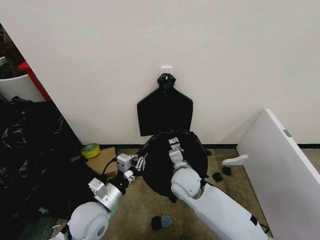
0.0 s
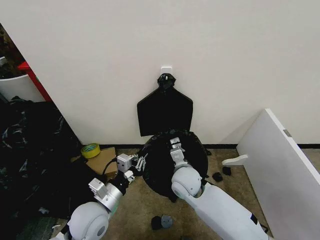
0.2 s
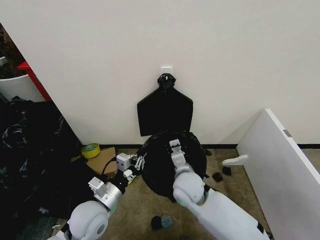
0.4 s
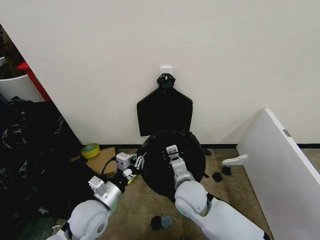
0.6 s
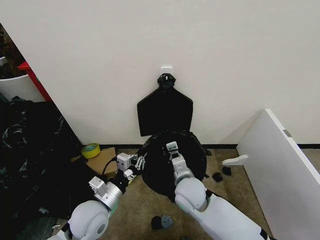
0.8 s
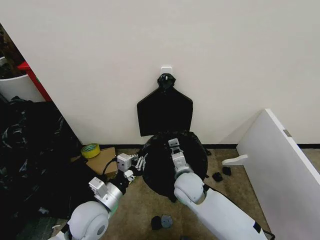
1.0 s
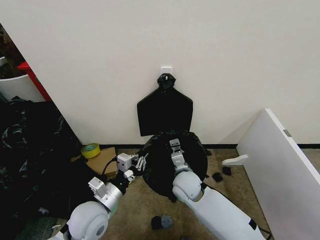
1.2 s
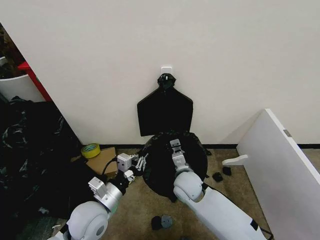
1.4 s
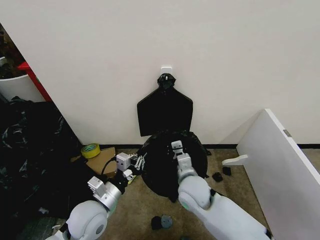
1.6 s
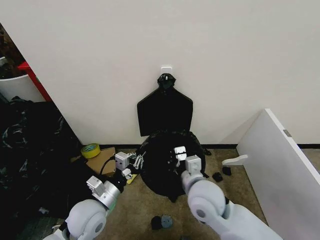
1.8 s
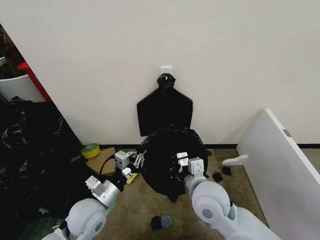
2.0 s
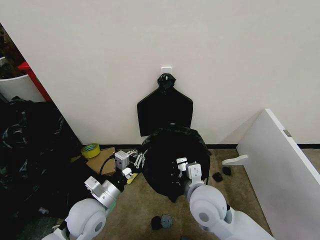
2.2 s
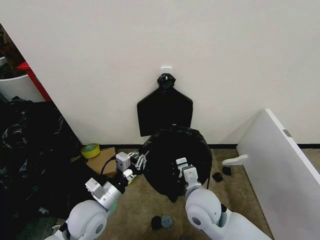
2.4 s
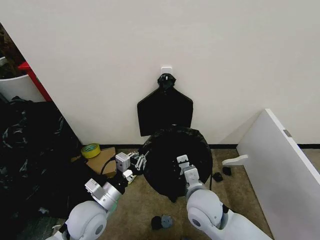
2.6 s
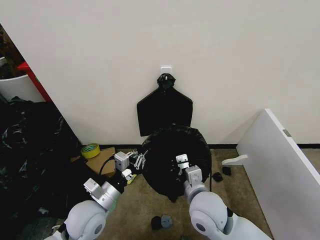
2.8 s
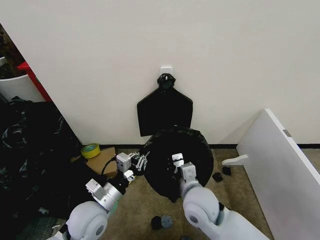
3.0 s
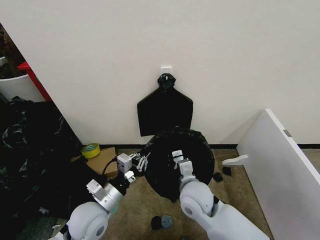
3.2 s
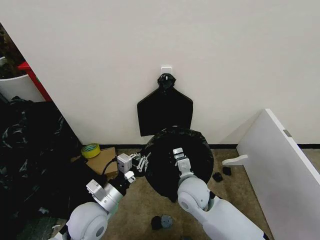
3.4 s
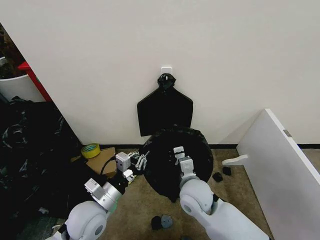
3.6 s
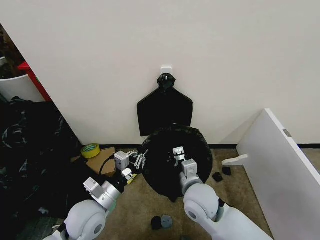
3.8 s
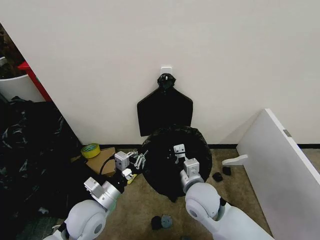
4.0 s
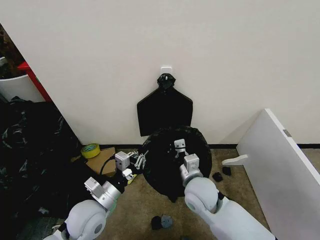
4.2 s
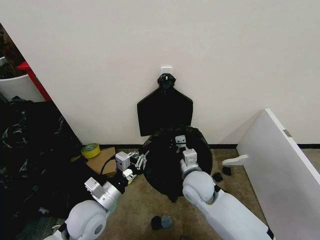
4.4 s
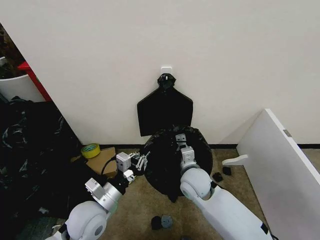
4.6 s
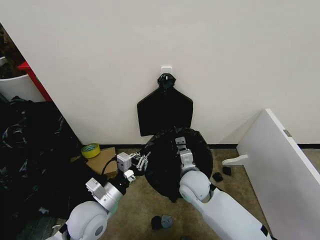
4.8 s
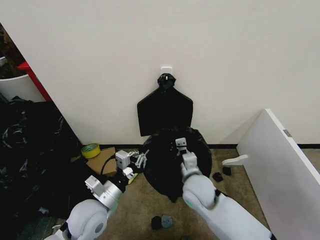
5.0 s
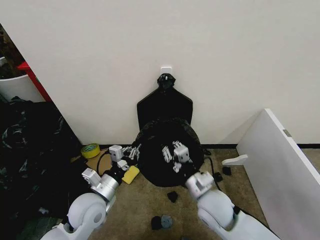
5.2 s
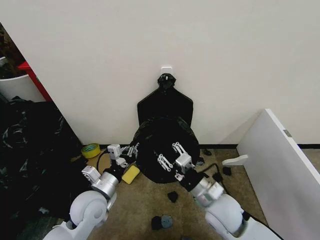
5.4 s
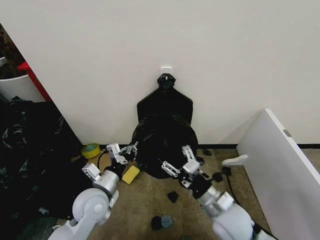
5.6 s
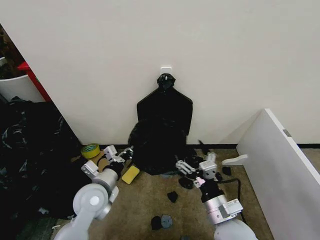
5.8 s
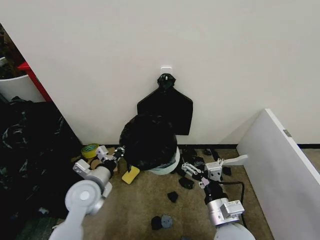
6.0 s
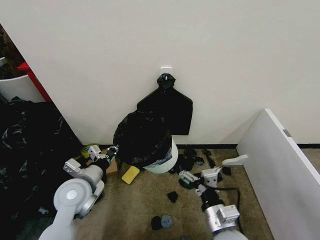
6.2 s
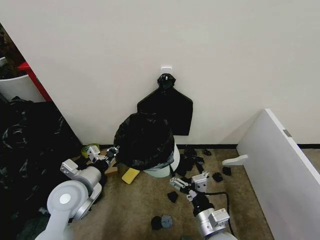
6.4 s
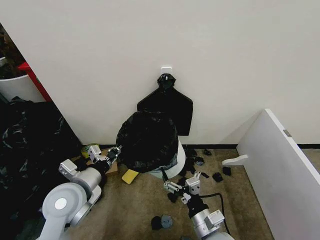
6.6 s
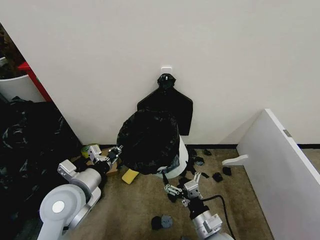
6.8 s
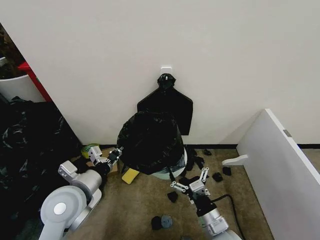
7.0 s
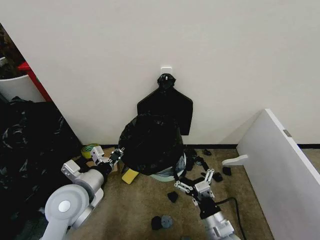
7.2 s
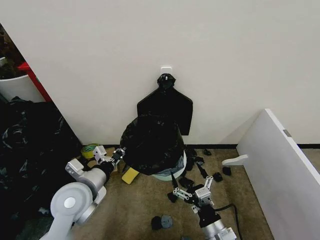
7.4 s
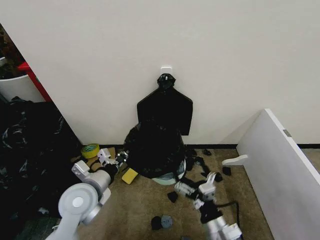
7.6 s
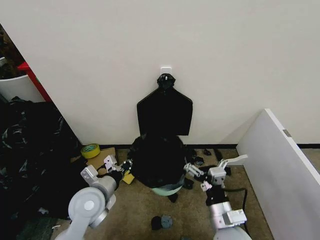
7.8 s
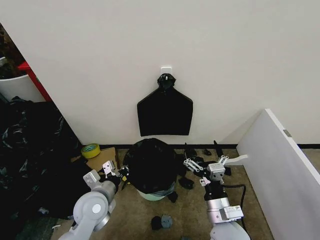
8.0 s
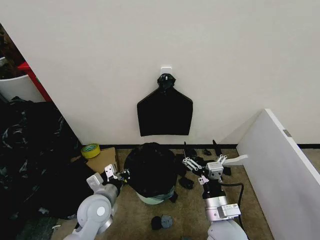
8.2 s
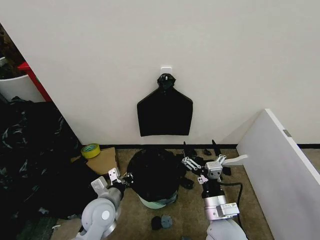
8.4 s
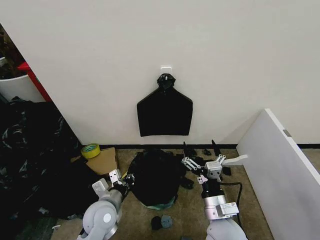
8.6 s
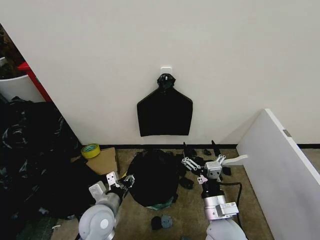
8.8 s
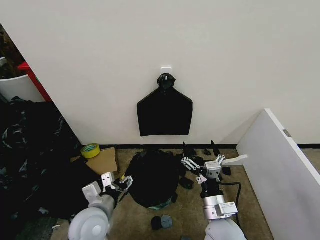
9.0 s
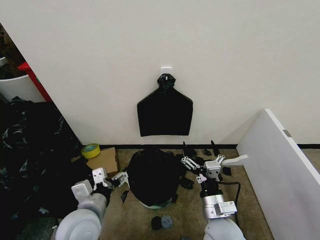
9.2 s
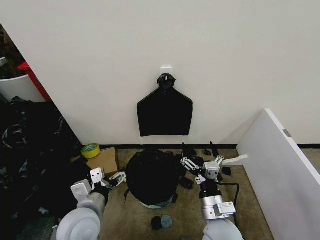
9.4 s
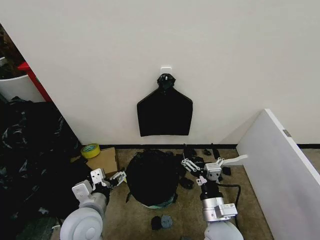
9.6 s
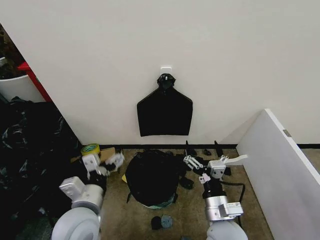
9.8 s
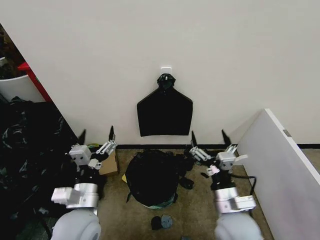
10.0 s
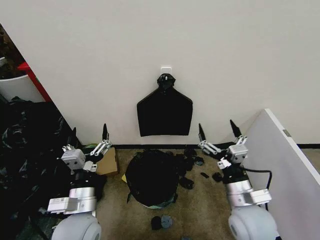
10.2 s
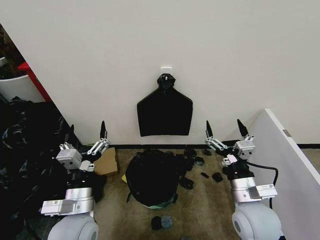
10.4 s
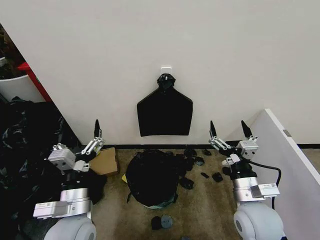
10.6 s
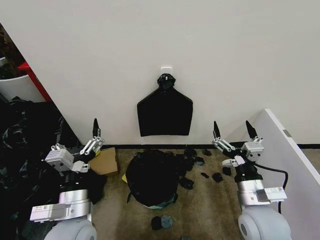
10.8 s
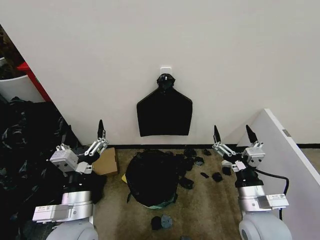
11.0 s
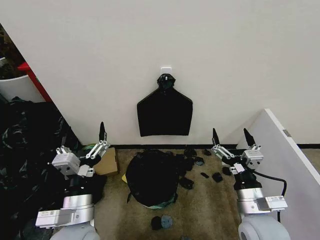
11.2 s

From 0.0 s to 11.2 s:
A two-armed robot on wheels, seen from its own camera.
Task of the whole recording: Place the garbage bag over the trash bin.
From 0.0 s to 1.6 s: The right gripper moves forward and backward over roughly 5 cm, changing direction 2 times.
From 3.2 s to 4.8 s: The right gripper travels forward by roughly 5 cm.
From 4.8 s to 6.4 s: The right gripper is displaced backward by approximately 15 cm, and opens up. The left gripper shifts by approximately 10 cm.
From 6.4 s to 8.0 s: The left gripper heads downward, covering roughly 5 cm.
From 8.0 s to 9.6 s: The left gripper heads backward, covering roughly 5 cm, and opens.
From 9.6 s to 11.2 s: The right gripper heads to the right and upward, covering some 10 cm. The left gripper ends up approximately 5 cm from where it was.
